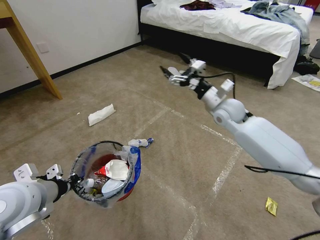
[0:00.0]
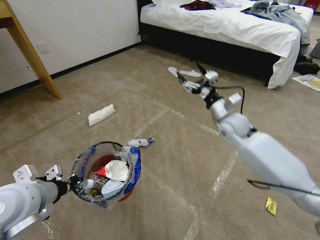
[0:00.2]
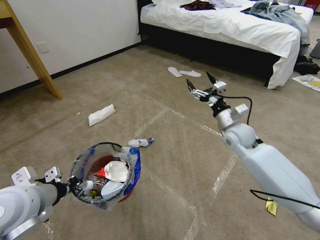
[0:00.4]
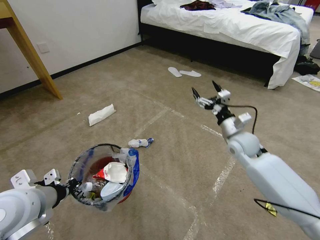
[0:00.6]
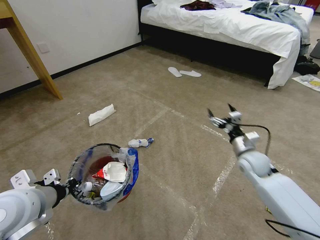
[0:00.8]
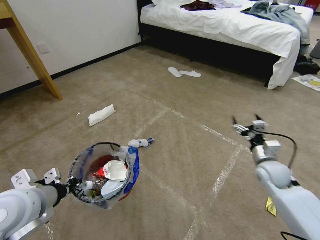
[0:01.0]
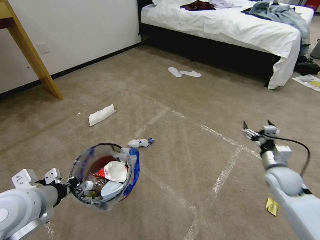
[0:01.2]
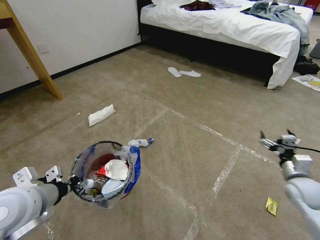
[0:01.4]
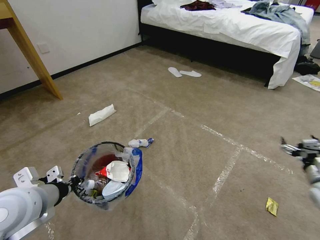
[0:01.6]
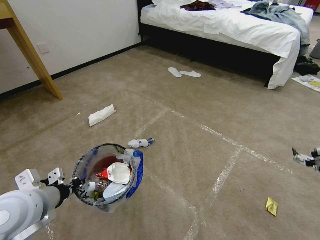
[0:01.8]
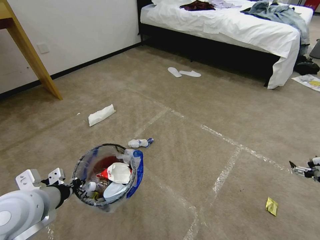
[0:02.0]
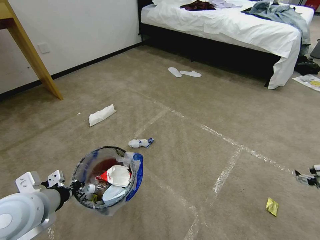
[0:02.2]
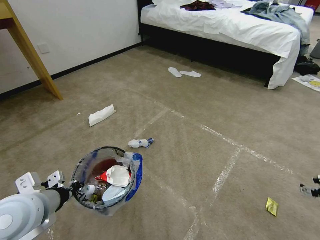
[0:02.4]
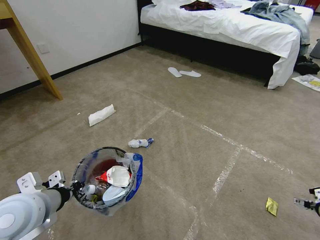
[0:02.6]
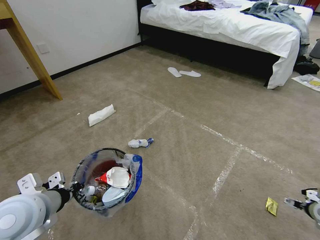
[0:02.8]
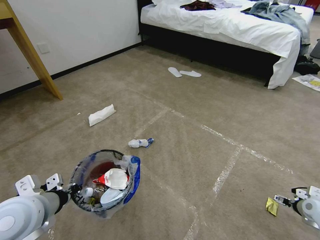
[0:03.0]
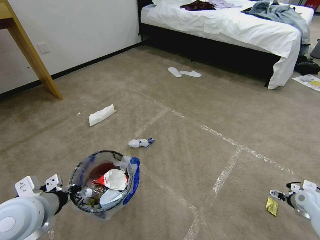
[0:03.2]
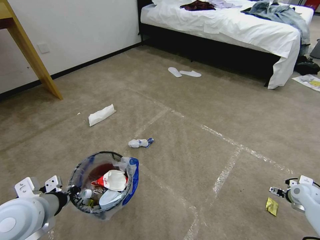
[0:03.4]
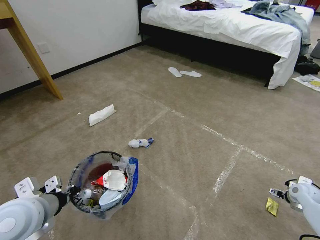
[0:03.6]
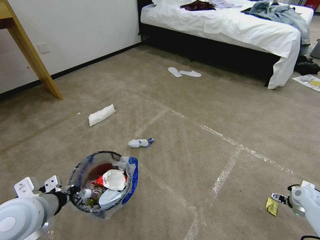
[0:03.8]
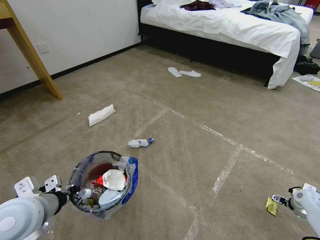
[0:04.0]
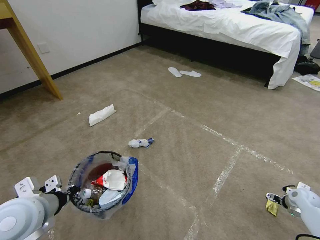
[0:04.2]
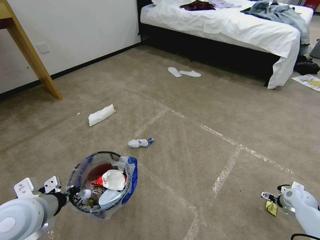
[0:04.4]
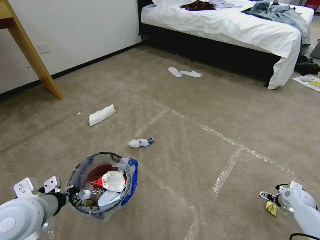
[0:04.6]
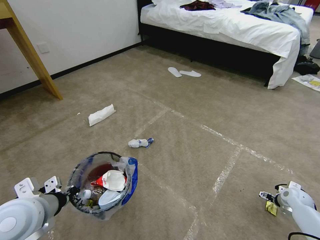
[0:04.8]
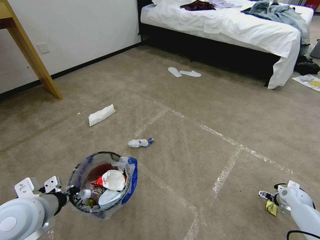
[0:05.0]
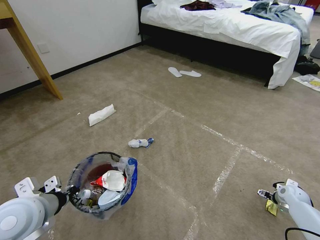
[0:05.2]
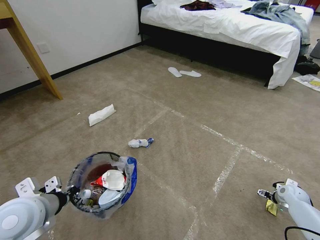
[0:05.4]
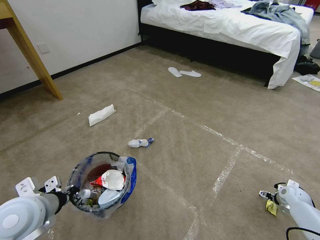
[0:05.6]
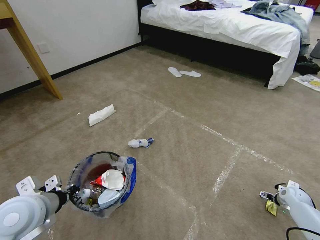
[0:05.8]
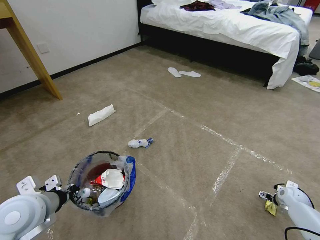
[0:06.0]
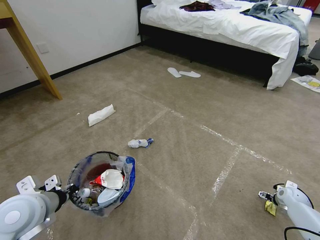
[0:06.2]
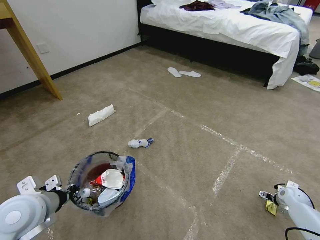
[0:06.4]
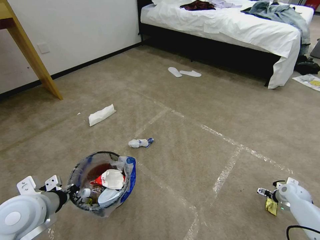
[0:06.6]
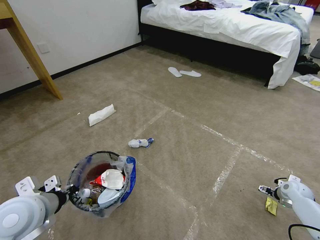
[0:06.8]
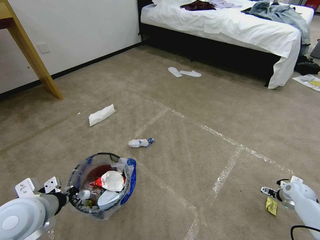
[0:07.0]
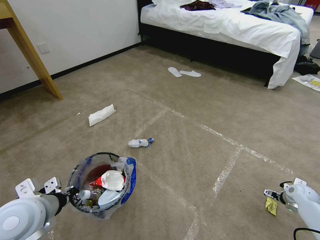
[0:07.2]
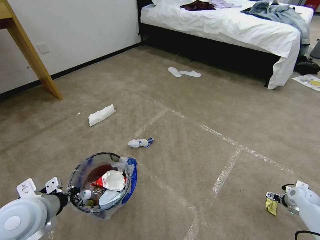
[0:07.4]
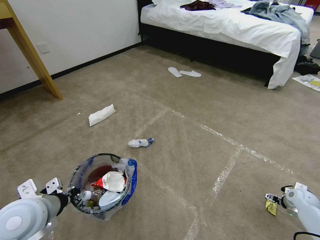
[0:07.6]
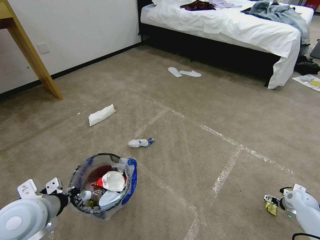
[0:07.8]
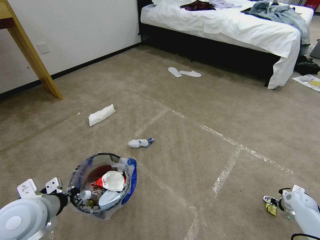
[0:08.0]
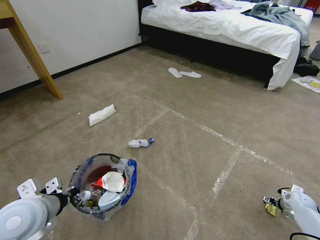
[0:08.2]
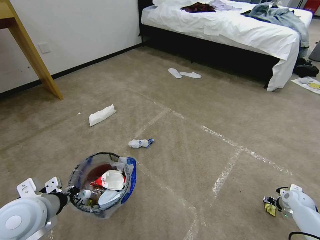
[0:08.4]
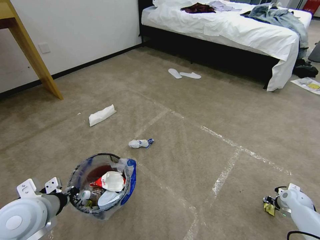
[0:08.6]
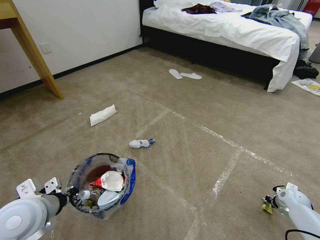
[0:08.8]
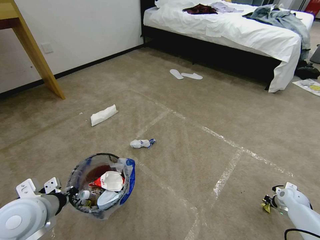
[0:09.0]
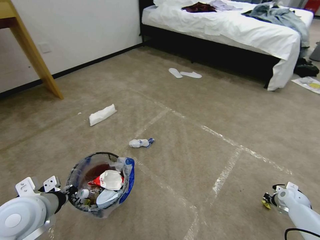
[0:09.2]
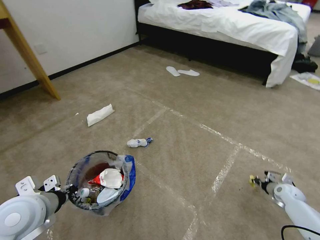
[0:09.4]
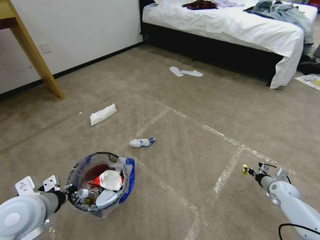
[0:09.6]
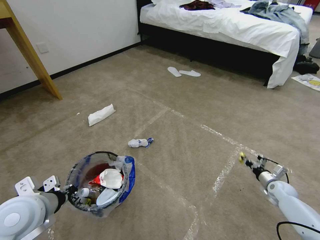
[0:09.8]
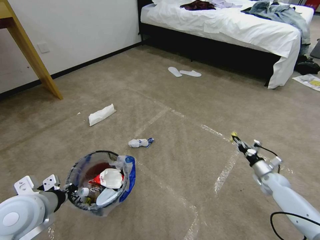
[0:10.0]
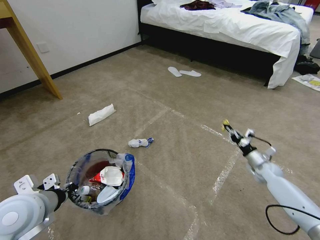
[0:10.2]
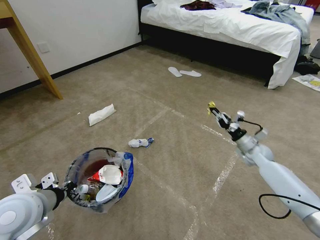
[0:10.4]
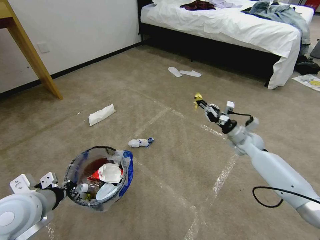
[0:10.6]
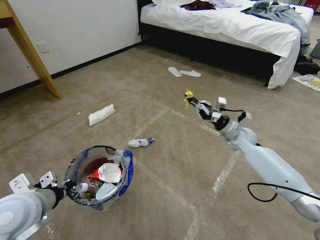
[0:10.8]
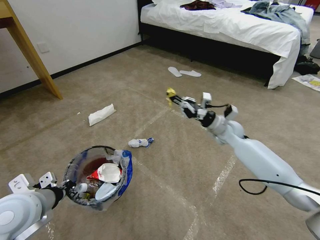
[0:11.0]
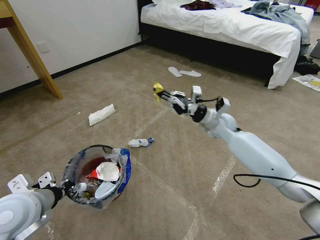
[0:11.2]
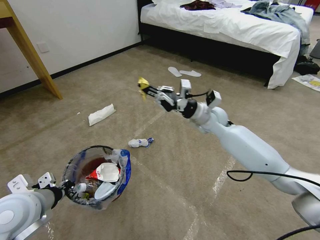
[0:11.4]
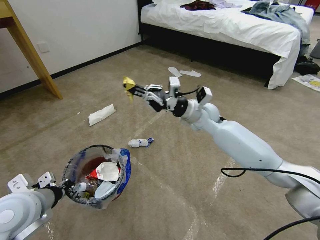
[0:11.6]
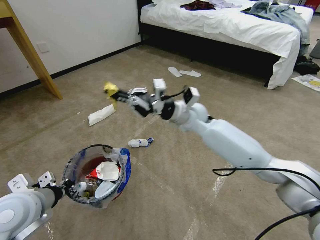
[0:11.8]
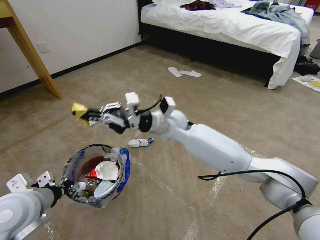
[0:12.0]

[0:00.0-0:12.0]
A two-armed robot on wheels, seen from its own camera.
Task of the whole recording: Pick up the trash bin and place the garbage on the floor into it.
0:00.0 to 0:01.6: The right gripper shifts some 40 cm to the right, backward and downward.
0:01.6 to 0:03.0: The right gripper moves downward, roughly 10 cm.
0:03.0 to 0:04.4: The right gripper changes place by approximately 5 cm.
0:04.4 to 0:07.6: There are only small adjustments of the grippers.
0:07.6 to 0:09.0: The right gripper closes up.
0:09.0 to 0:10.4: The right gripper goes some 25 cm to the left, forward and upward.
0:10.4 to 0:12.0: The right gripper goes roughly 40 cm to the left and upward.

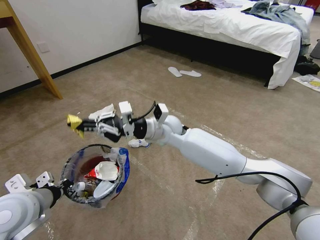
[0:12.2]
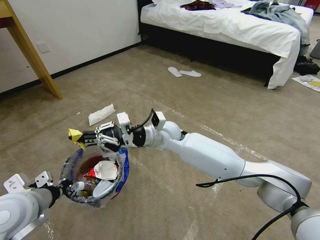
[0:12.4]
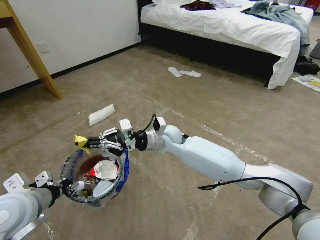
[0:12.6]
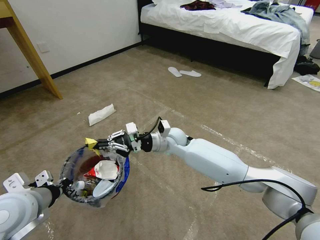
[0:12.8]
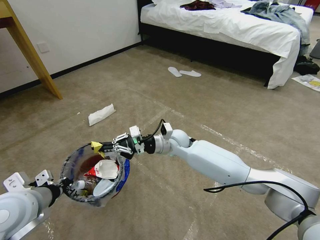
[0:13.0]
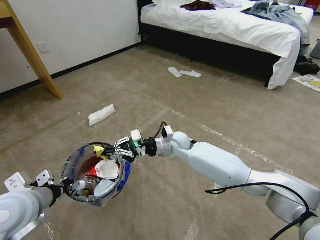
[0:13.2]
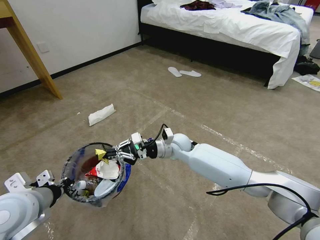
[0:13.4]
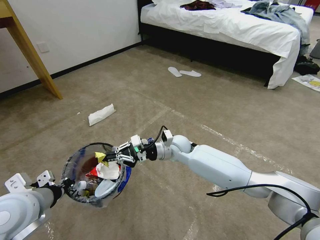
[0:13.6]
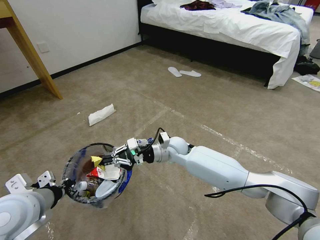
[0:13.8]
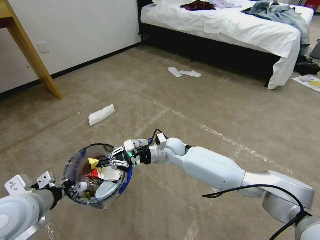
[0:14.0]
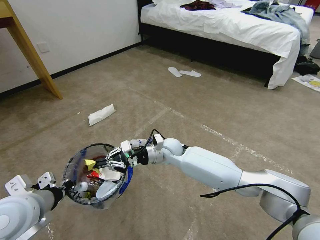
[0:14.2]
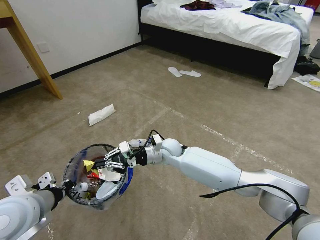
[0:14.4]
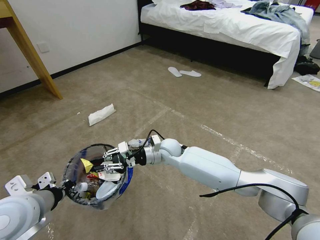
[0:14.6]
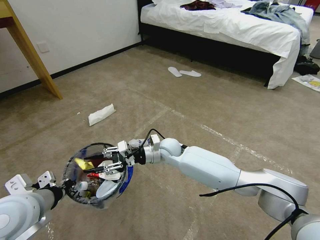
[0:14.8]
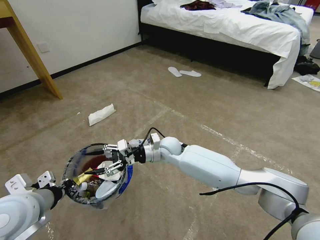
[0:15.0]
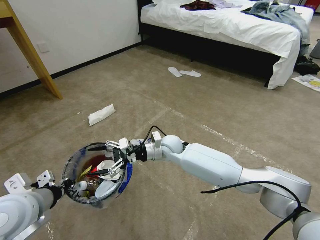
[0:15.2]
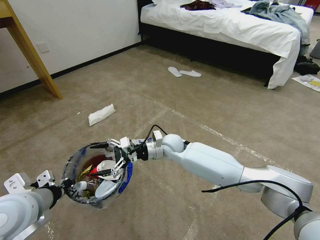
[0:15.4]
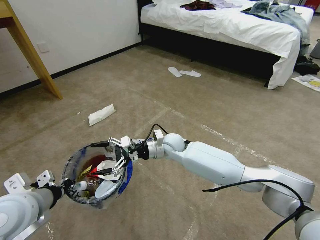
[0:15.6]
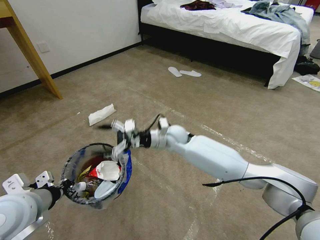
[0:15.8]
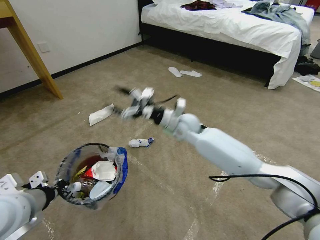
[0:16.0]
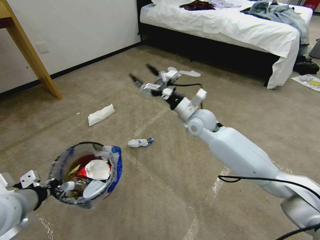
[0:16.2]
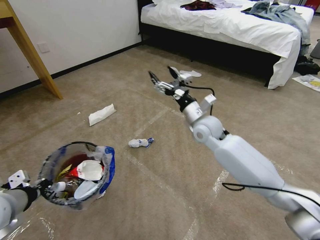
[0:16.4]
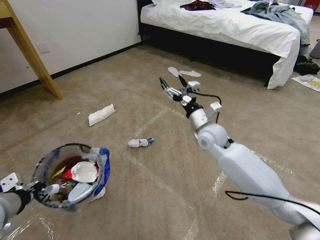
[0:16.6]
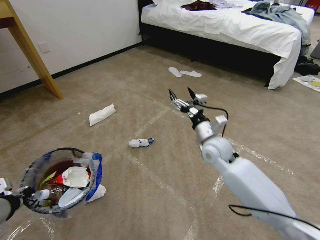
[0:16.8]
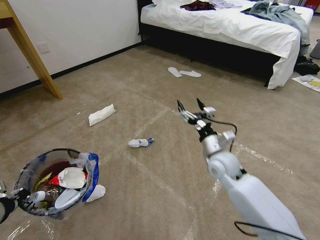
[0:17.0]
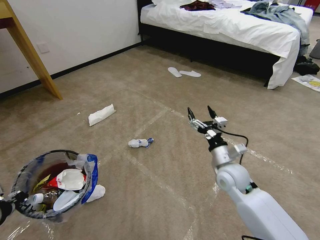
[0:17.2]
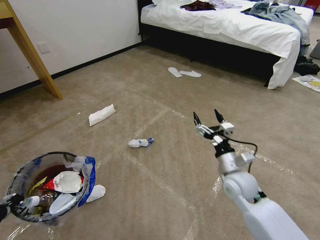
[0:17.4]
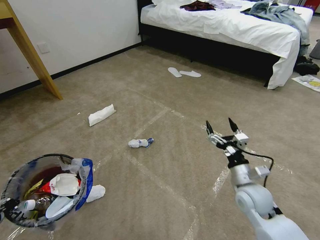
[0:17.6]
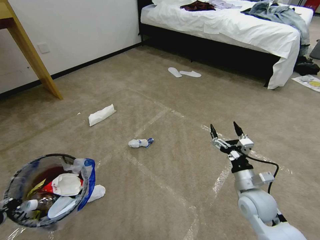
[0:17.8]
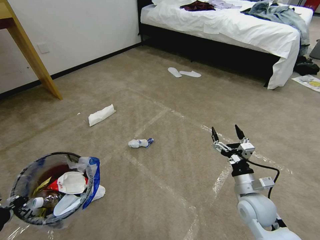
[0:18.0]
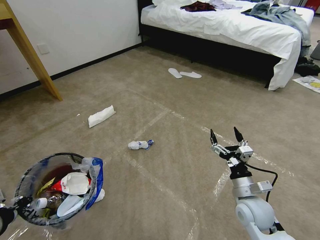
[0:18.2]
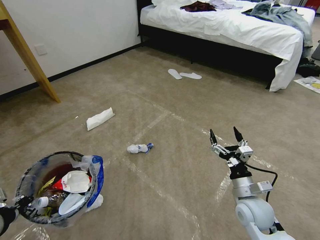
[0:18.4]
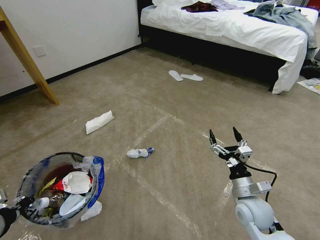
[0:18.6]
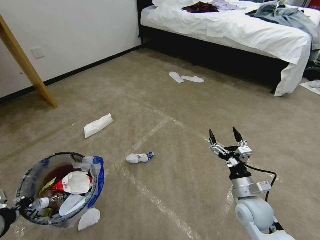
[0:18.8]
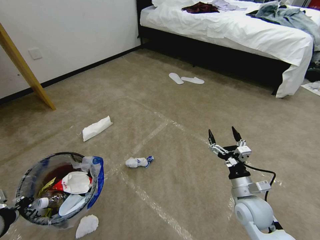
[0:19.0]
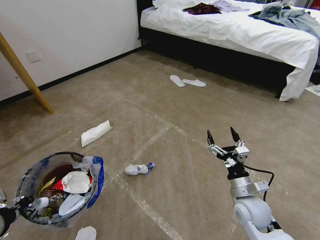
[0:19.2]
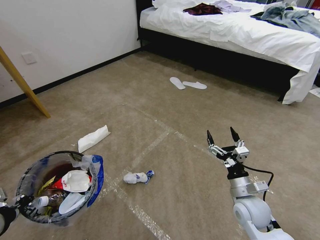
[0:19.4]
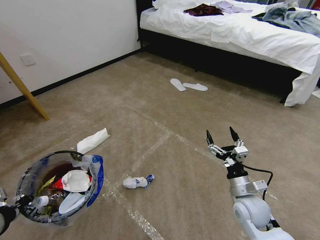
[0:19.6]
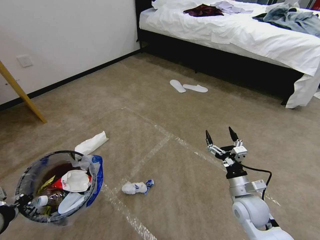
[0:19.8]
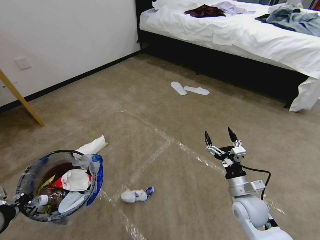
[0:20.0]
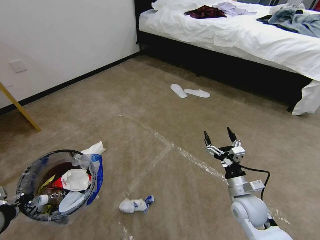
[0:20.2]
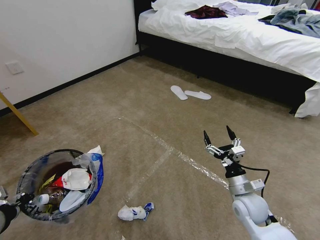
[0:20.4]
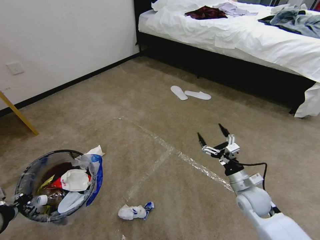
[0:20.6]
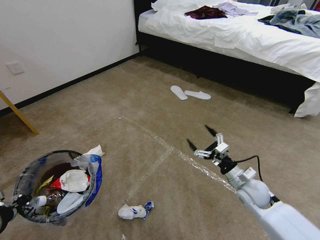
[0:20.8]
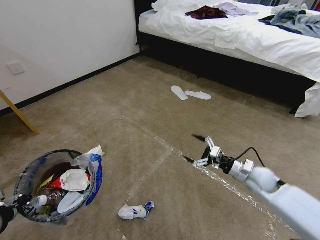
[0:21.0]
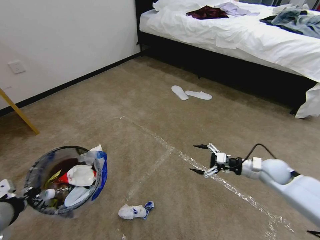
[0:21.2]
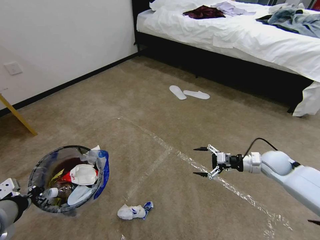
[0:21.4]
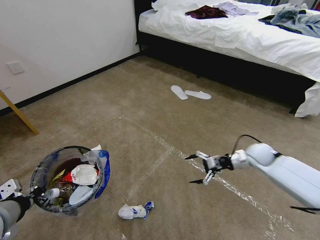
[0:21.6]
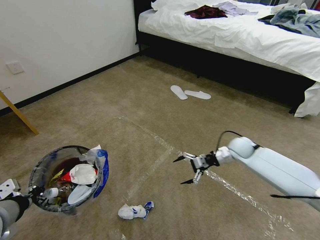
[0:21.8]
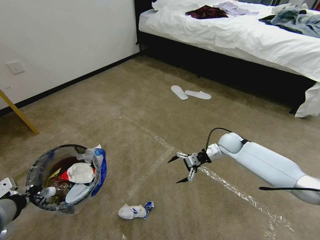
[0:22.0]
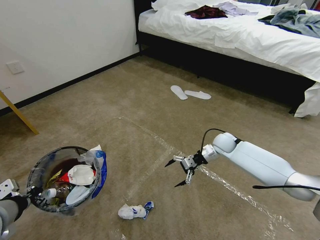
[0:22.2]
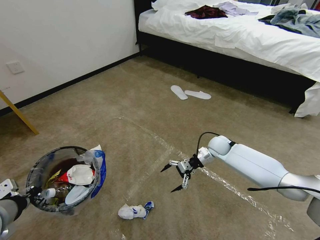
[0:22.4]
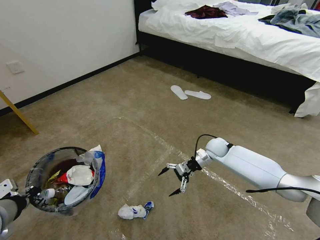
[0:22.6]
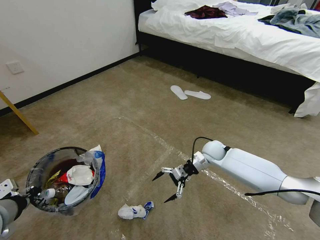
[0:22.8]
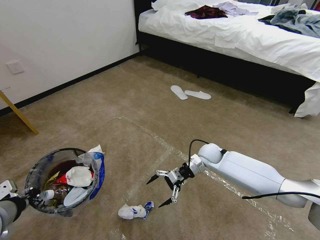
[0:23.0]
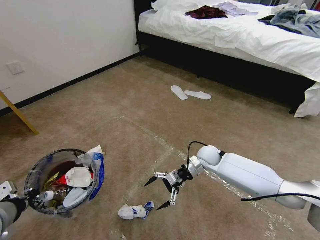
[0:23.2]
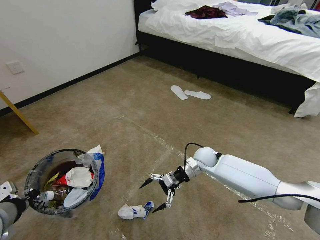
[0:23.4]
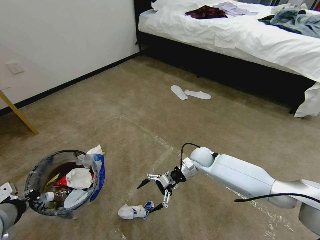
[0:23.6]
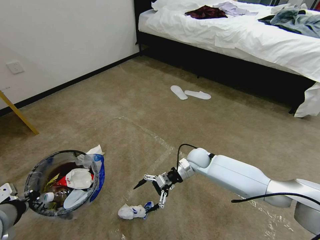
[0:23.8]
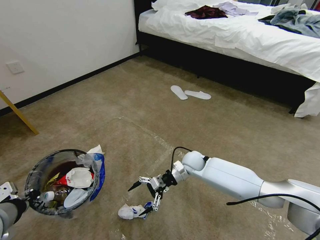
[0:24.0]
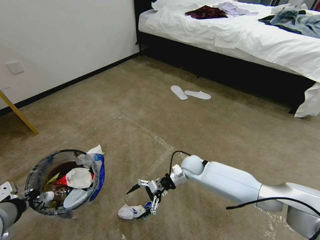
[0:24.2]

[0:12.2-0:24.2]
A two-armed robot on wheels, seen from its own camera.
Task of the whole recording: Pick up the trash bin and place the garbage on the floor into it.
0:12.2 to 0:13.8: The right gripper heads downward, covering about 10 cm.
0:13.8 to 0:15.2: The right gripper opens up.
0:15.2 to 0:16.6: The right gripper travels to the right and upward by some 15 cm; the left gripper moves some 5 cm.
0:16.6 to 0:18.2: The left gripper shifts roughly 5 cm backward. Meanwhile the right gripper goes approximately 30 cm backward, downward and to the right.
0:19.8 to 0:21.2: The right gripper goes roughly 15 cm forward and to the right.
0:21.2 to 0:22.6: The right gripper goes roughly 20 cm forward and to the left.
0:22.6 to 0:24.2: The right gripper heads to the left and backward, covering some 15 cm.
